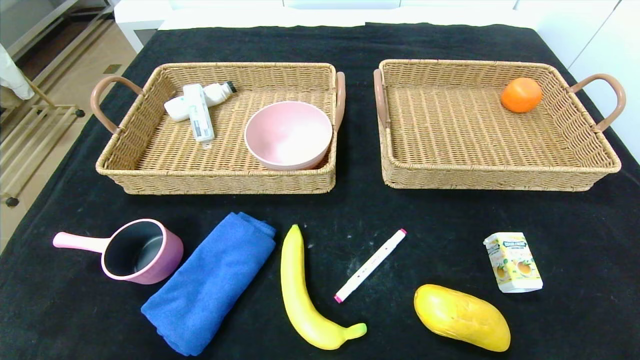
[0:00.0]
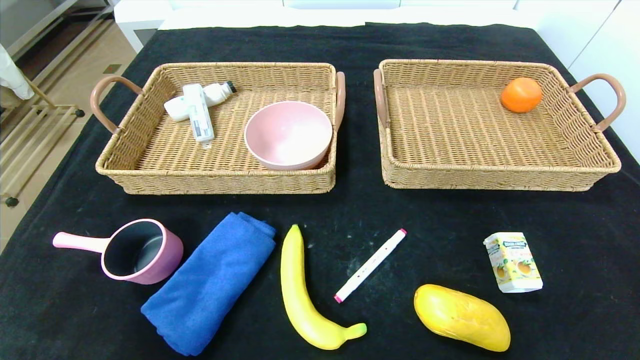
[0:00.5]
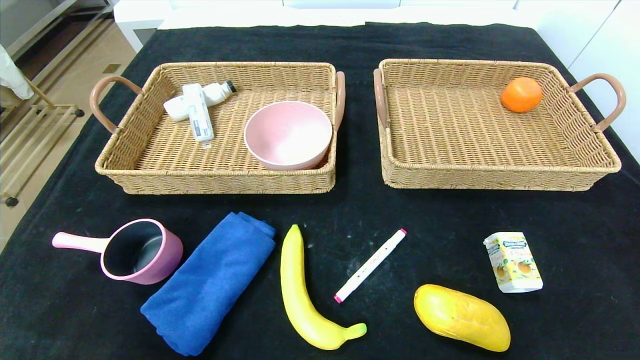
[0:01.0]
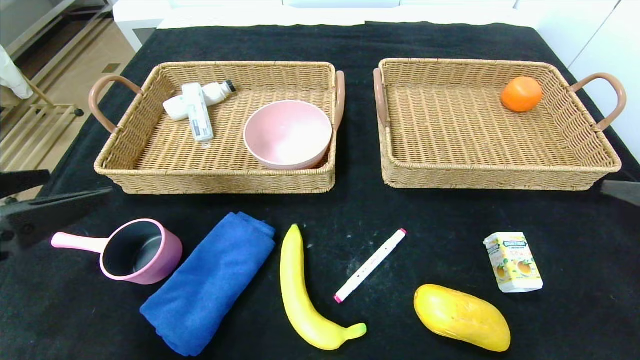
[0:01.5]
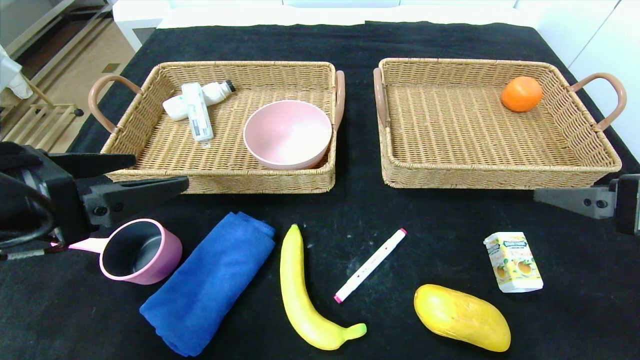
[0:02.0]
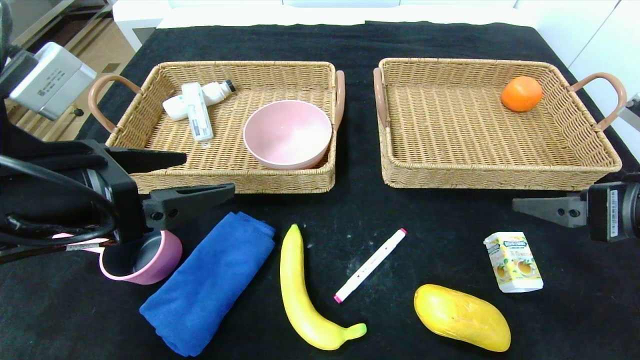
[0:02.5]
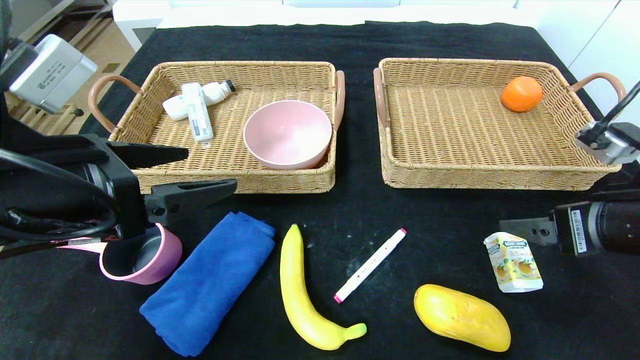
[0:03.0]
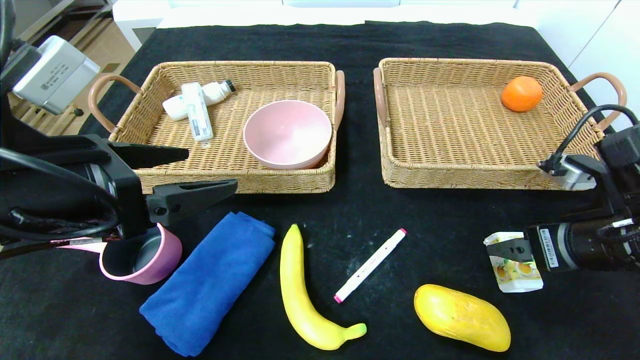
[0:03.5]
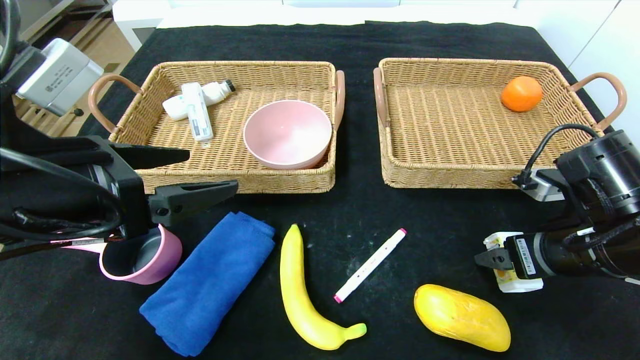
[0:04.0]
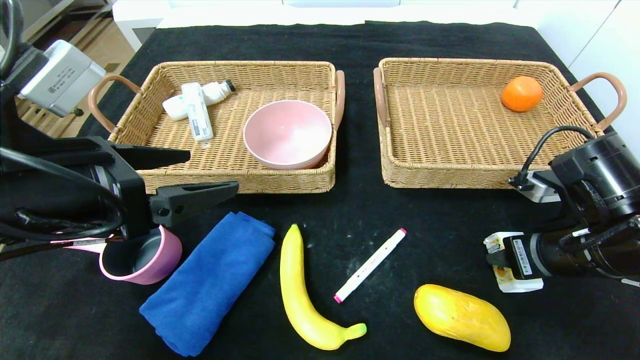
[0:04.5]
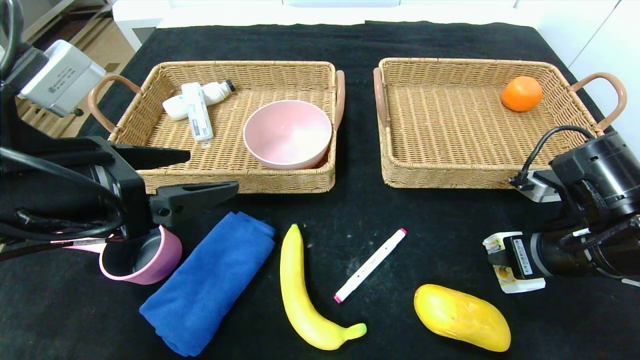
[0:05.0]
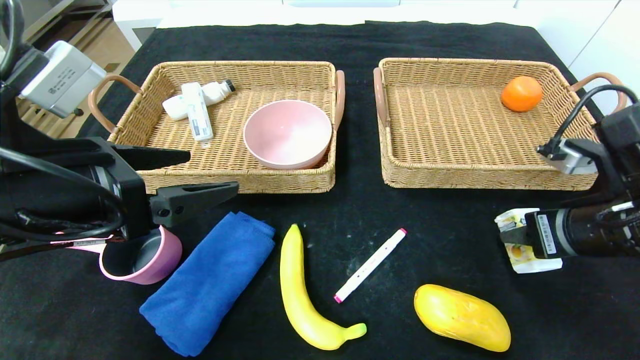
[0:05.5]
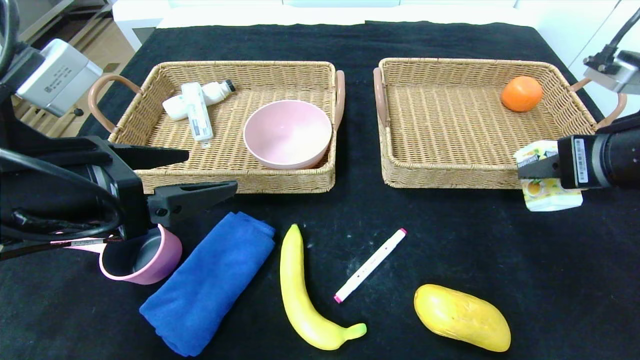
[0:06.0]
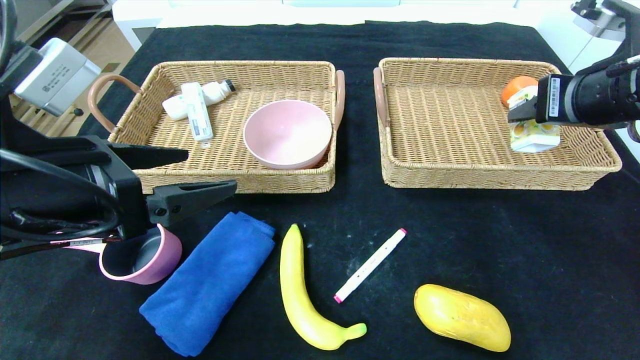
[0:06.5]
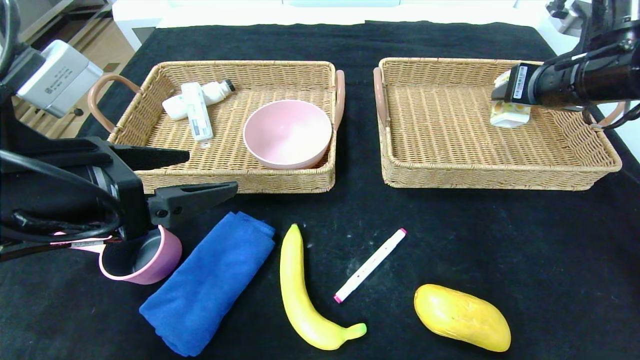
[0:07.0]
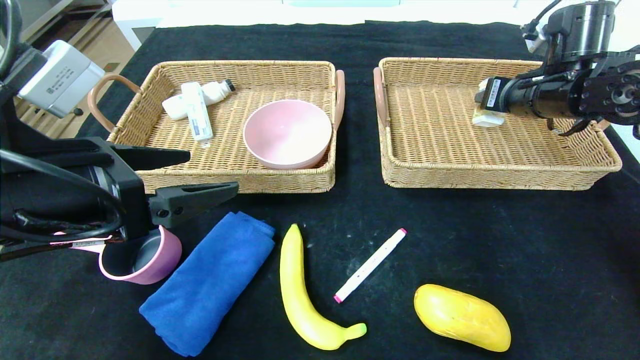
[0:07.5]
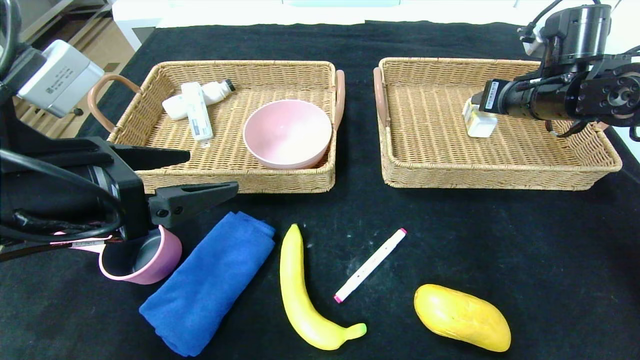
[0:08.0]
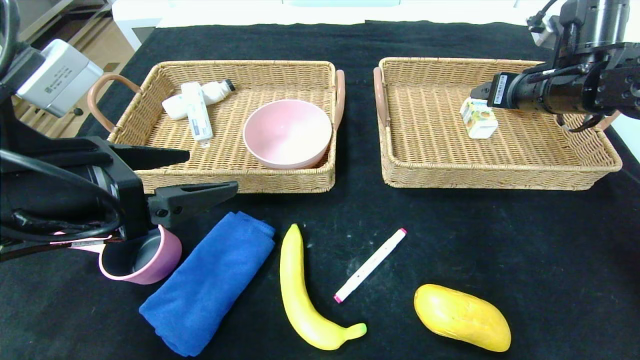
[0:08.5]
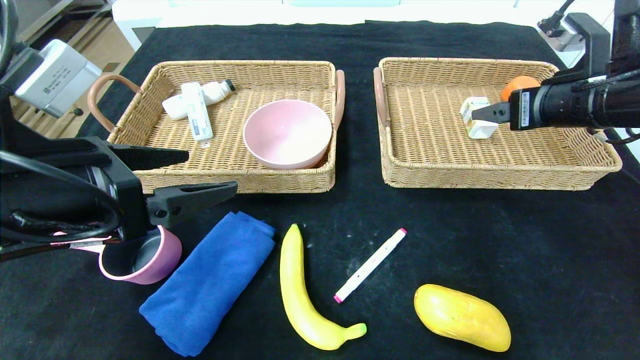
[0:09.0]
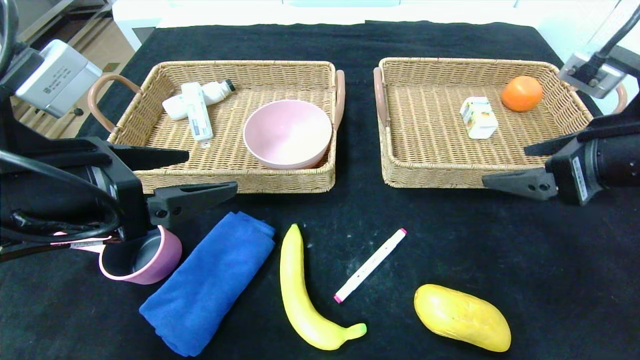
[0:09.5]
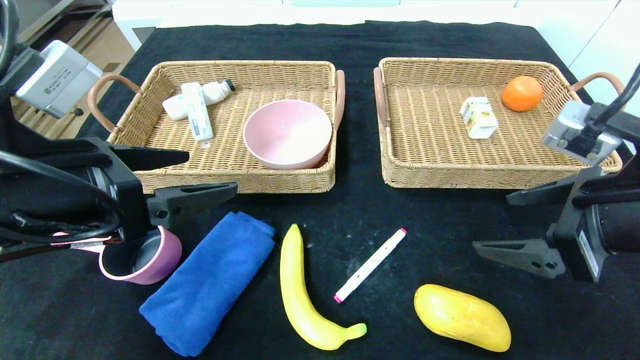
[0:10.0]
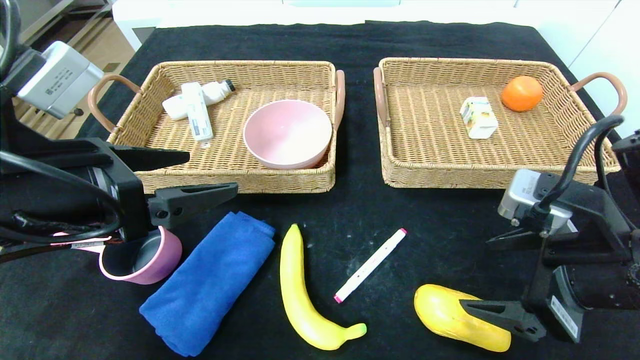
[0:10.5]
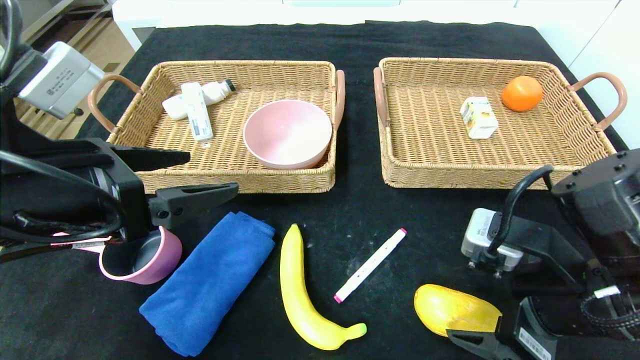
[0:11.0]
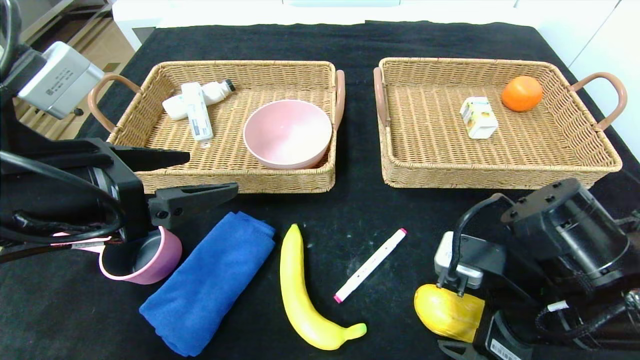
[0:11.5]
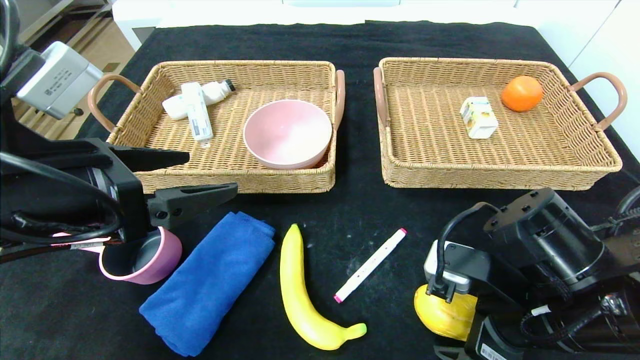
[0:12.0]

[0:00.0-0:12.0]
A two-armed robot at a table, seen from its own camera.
Step, 0:00.0 to 0:08.0: Grasp the square chewing gum and put it in the right basket.
0:00.0 to 0:02.0: The two grippers go about 30 cm forward and upward.
0:02.0 to 0:04.0: The right gripper travels downward and forward by some 10 cm.
0:04.0 to 0:06.0: The right gripper goes some 10 cm upward, and closes.
0:06.0 to 0:08.0: The right gripper travels forward by approximately 20 cm.
0:08.0 to 0:10.0: The right gripper goes roughly 20 cm backward, and opens its fingers.
0:10.0 to 0:12.0: The right gripper travels downward and to the left by roughly 10 cm.

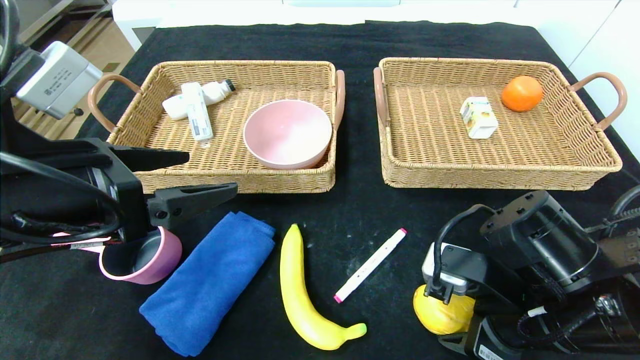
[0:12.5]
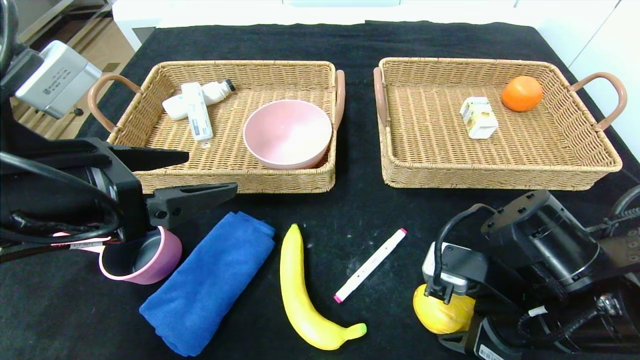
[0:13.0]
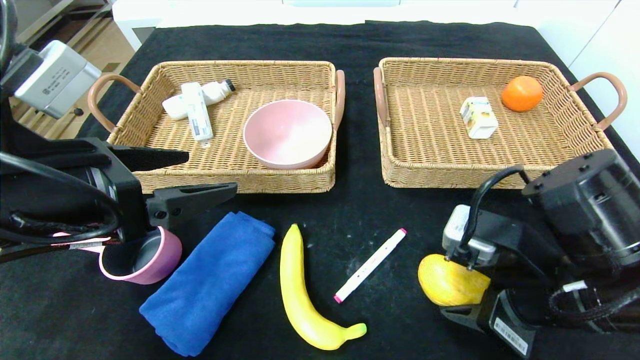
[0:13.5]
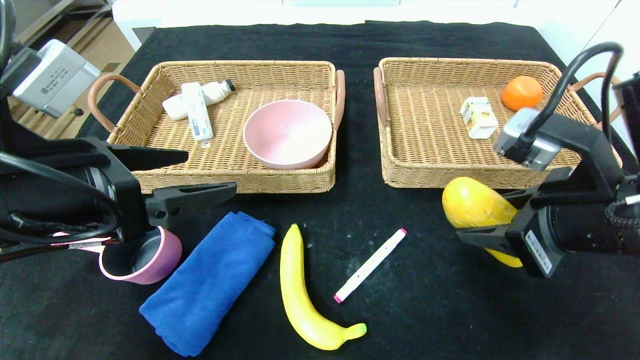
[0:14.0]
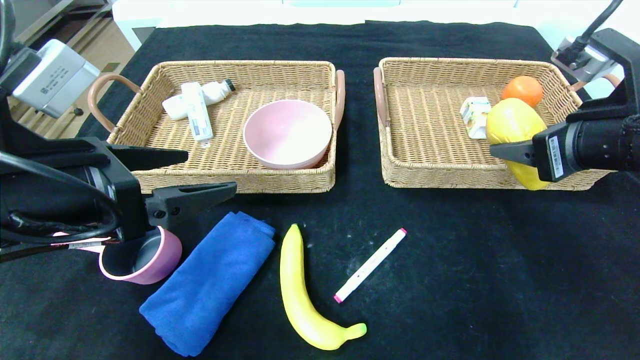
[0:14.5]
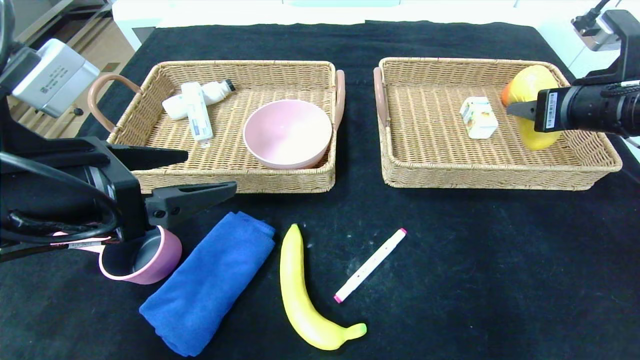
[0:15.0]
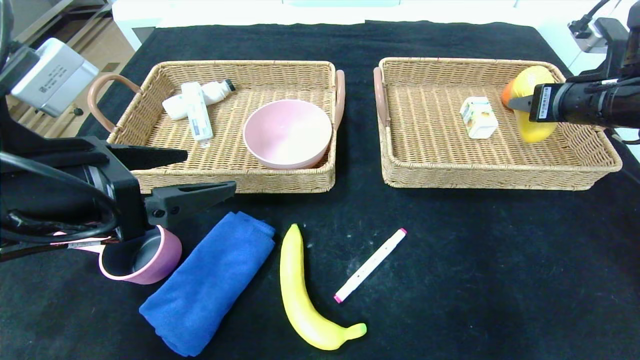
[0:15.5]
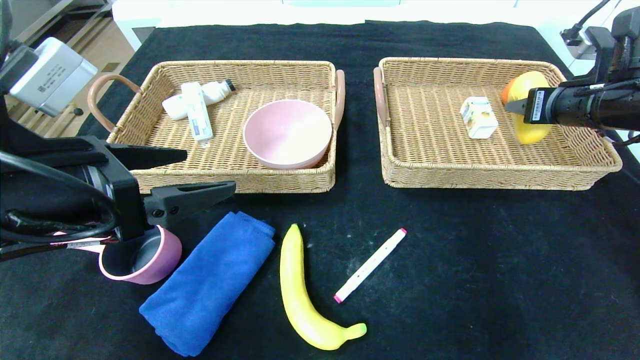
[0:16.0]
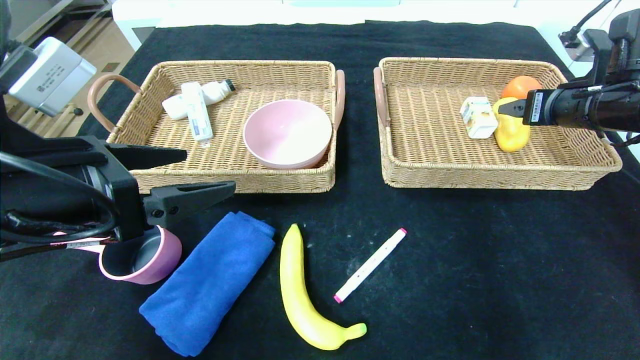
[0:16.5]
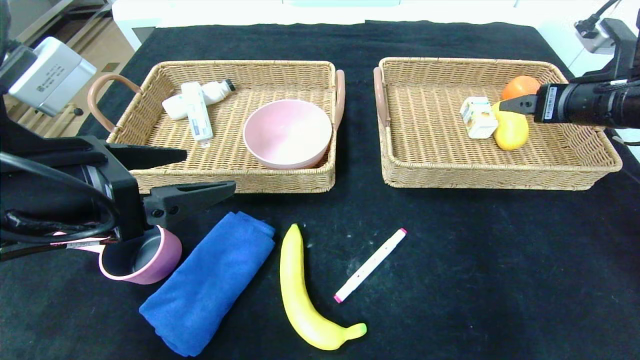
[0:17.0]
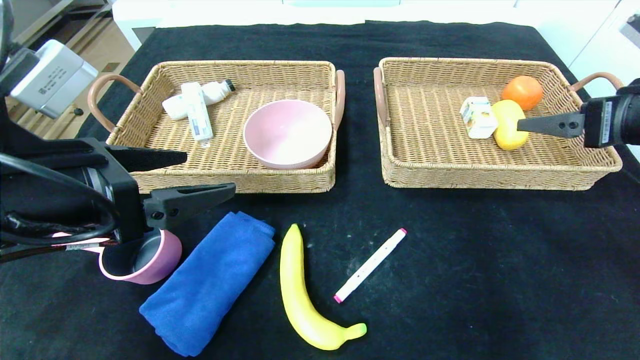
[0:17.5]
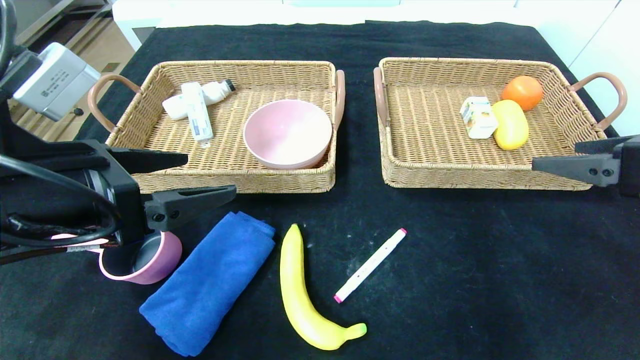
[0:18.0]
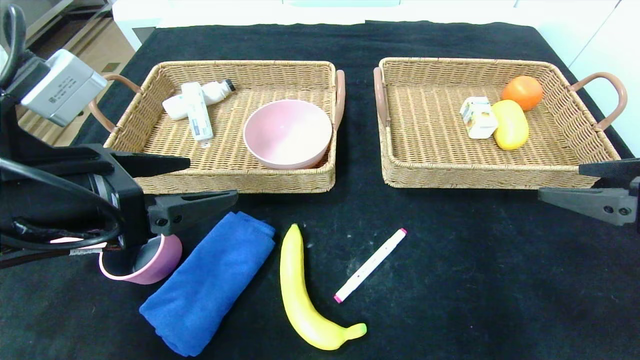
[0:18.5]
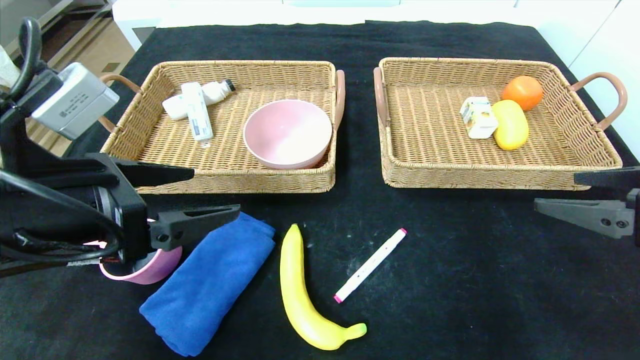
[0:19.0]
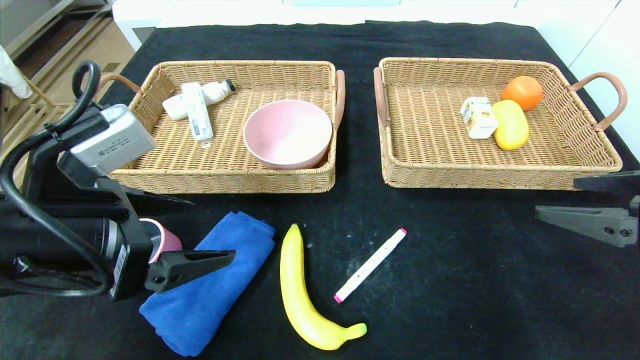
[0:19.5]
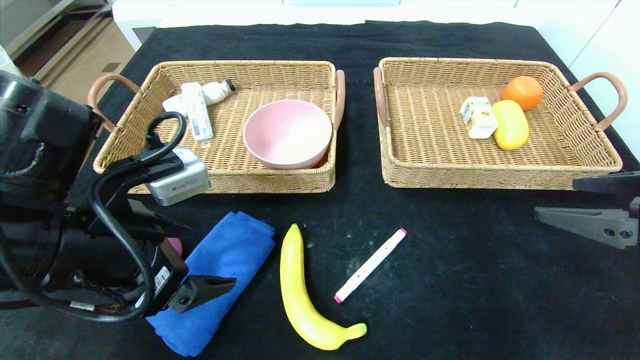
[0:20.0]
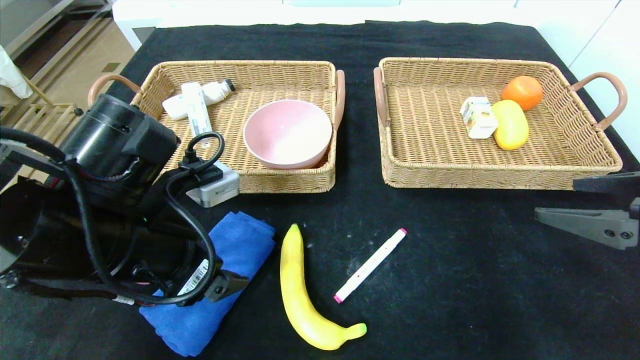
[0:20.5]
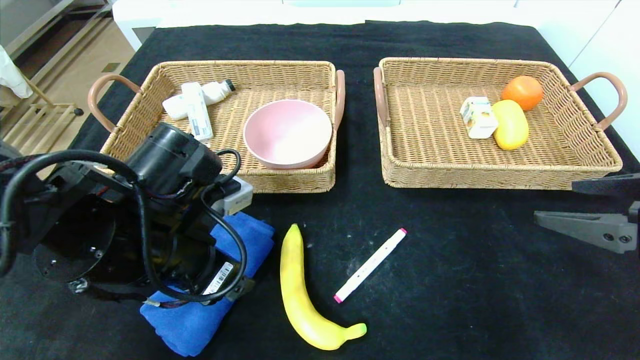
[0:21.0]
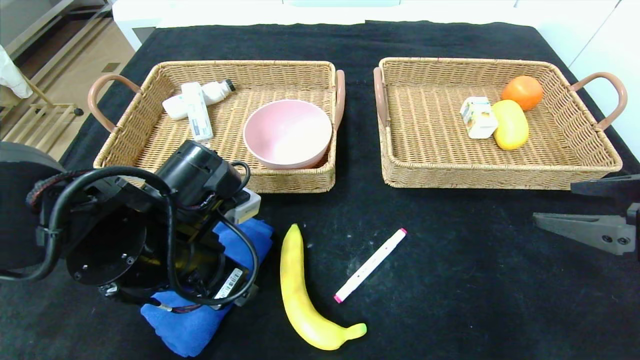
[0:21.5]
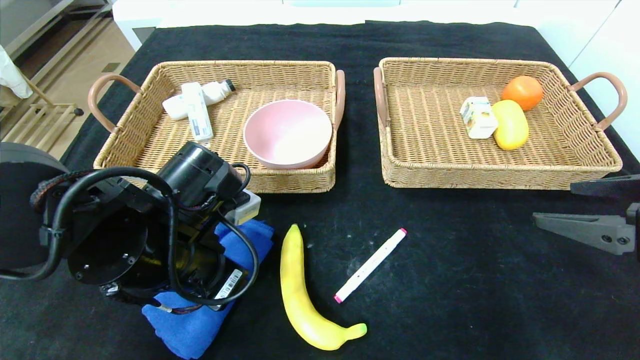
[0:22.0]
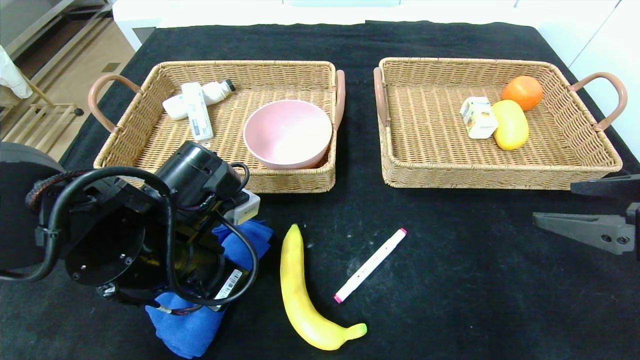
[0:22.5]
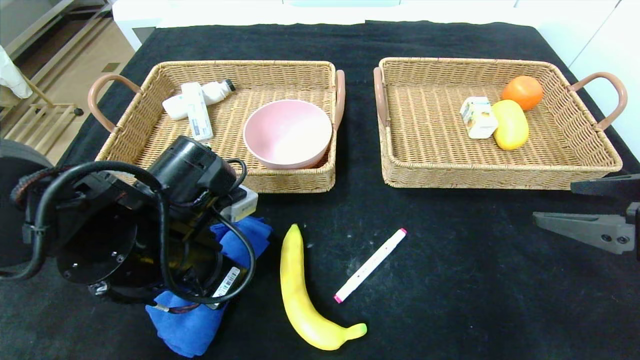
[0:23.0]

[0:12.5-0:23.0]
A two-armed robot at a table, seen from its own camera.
Step, 0:12.5 to 0:16.0: Grasp the mango and put it in the right basket.
0:12.5 to 0:14.5: The right gripper is displaced upward, to the right and forward by about 15 cm.
0:14.5 to 0:16.5: The right gripper is displaced forward and to the right by about 15 cm, and opens its fingers.
0:16.5 to 0:19.0: The right gripper is displaced backward by some 20 cm.
0:19.0 to 0:21.0: The left gripper travels to the right and downward by roughly 10 cm.
0:21.0 to 0:23.0: The left gripper closes up.
